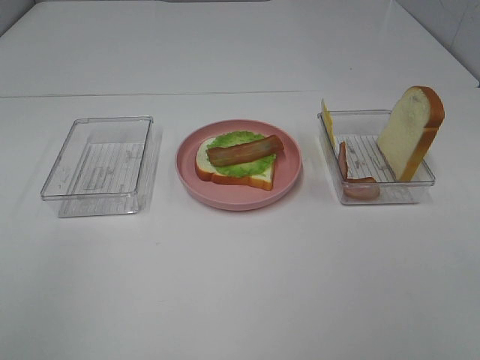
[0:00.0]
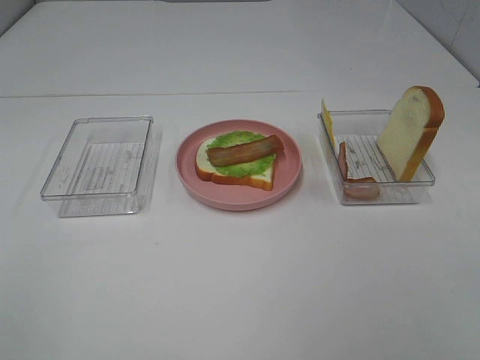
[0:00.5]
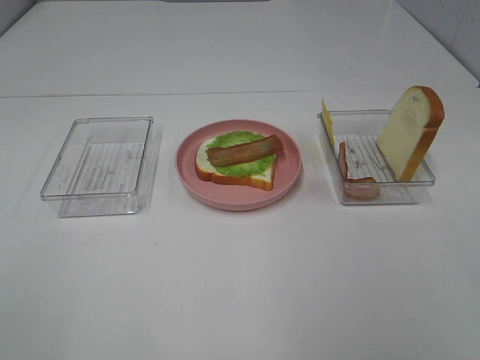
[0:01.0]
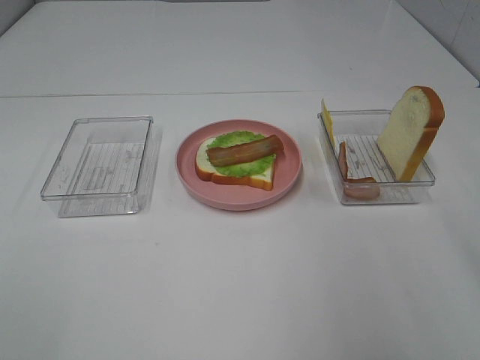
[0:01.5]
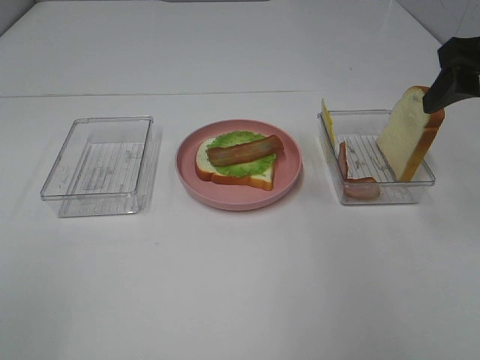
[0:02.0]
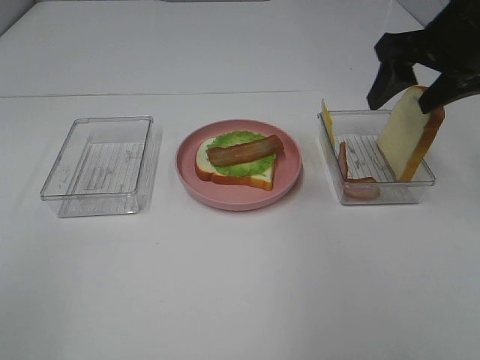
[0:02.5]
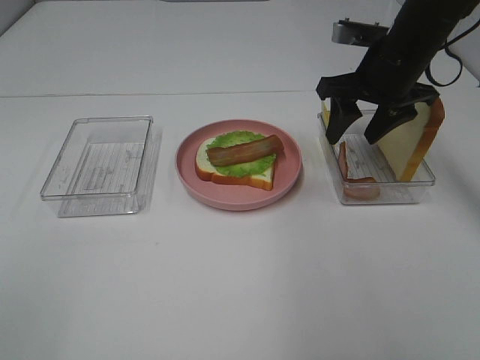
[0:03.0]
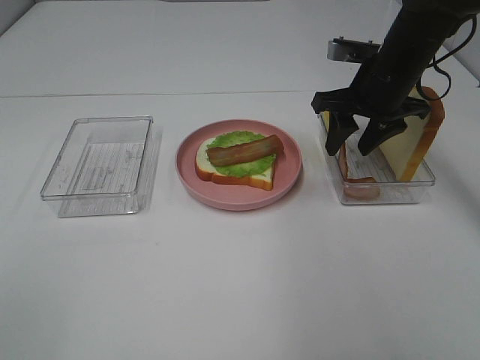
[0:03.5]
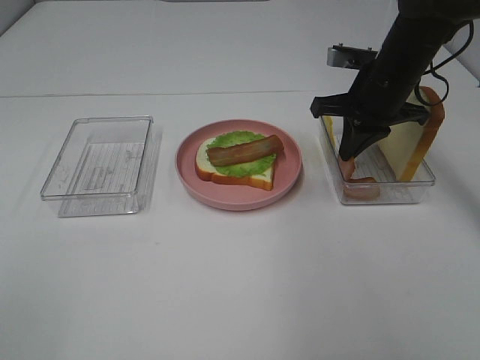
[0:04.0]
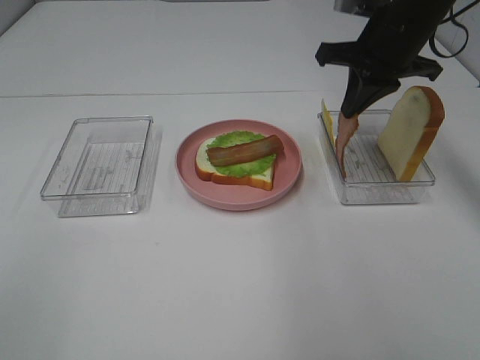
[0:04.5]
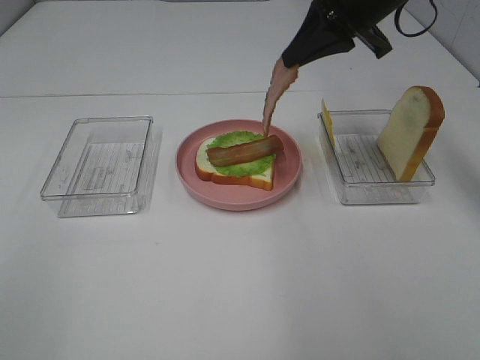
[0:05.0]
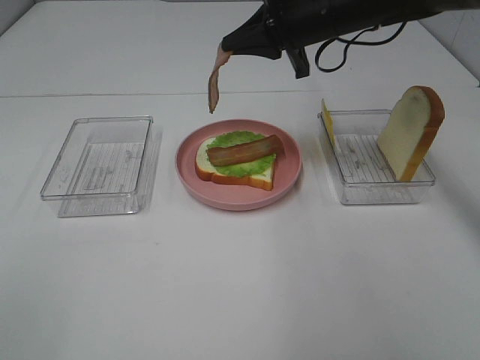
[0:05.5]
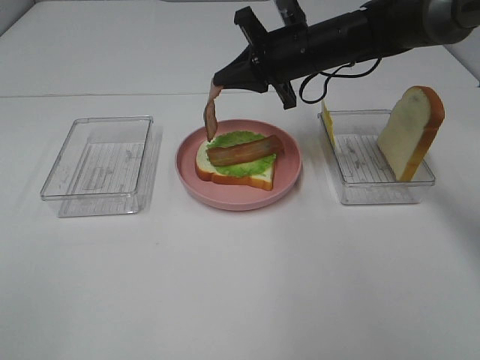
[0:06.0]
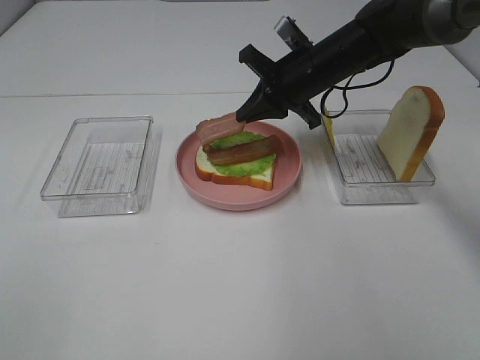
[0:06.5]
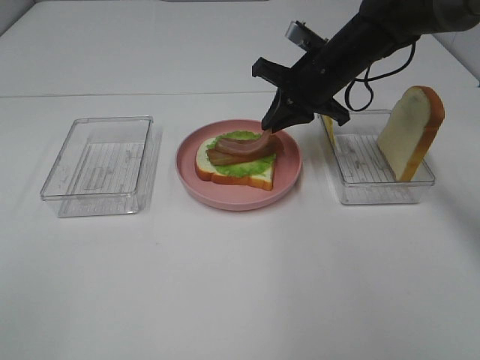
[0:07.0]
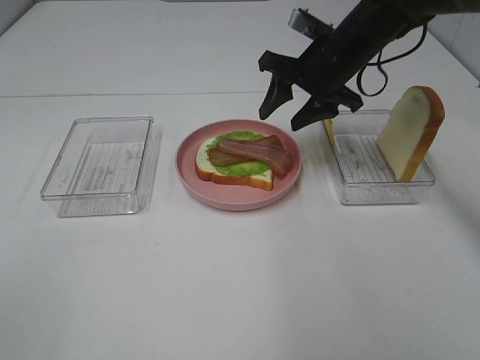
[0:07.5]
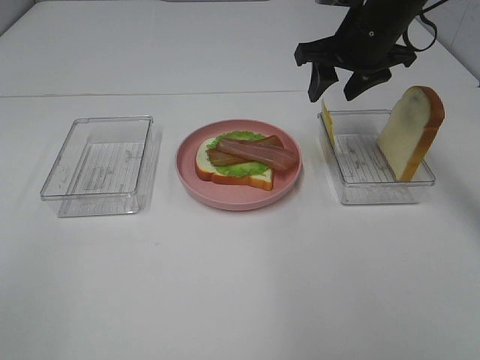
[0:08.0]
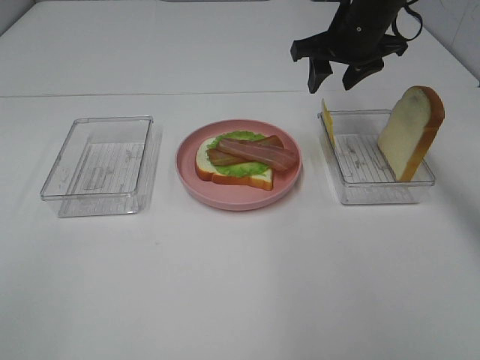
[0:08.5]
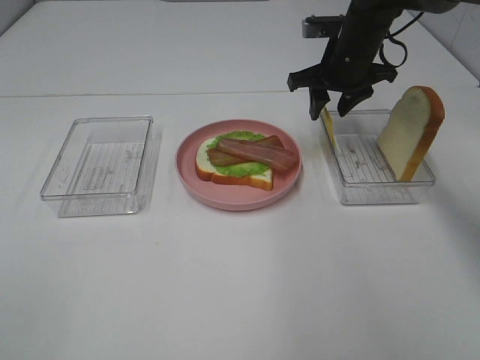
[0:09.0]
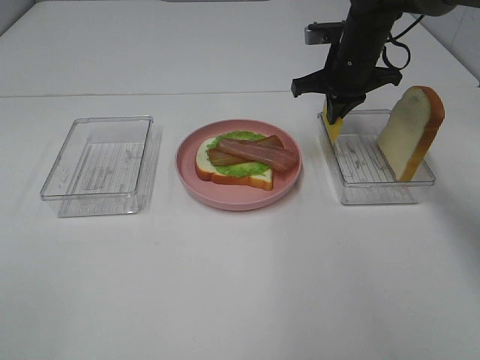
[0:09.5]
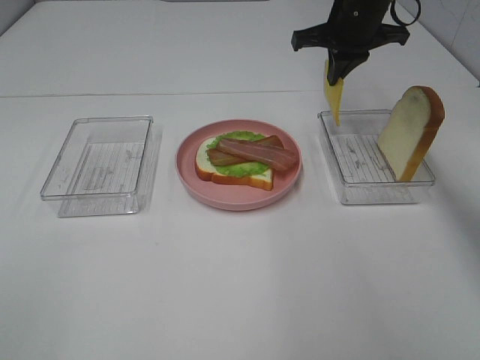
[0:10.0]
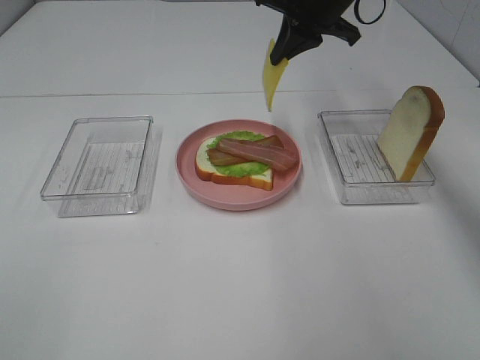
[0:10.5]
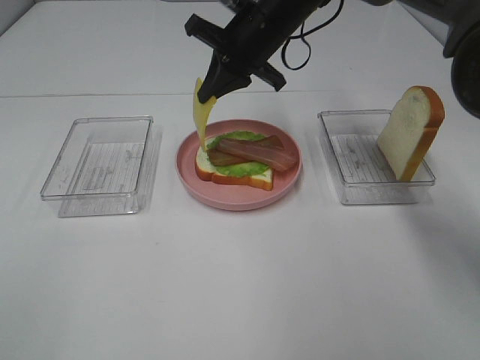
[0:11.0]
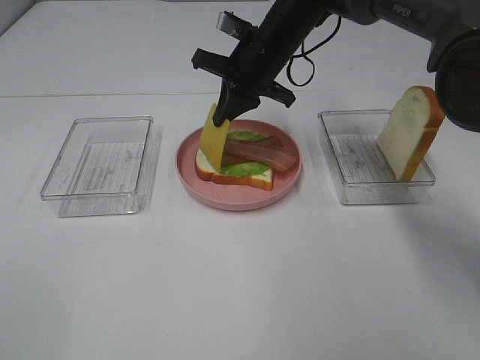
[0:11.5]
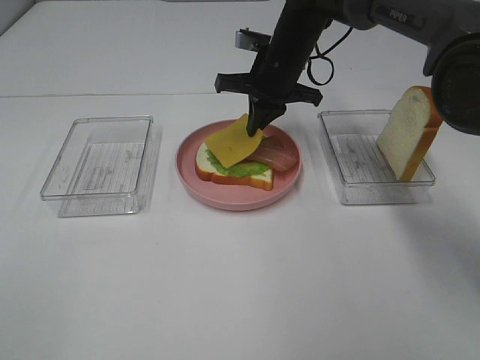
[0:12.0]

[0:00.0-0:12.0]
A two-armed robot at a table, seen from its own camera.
Task of the whole recording: Make sandwiches.
Step, 0:00.0 to 0:04.0: Right hand:grab the bacon.
Step, 0:04.5 to 0:07.5: Right hand:place bacon on bacon.
Step, 0:08.0 to 0:09.5: Right hand:grab the cheese slice.
0:00.0 to 0:02.0: The right gripper heads forward, covering roughly 30 cm.
0:02.0 to 0:04.0: The right gripper is displaced forward, downward and to the left by about 20 cm, and closes its fingers.
0:04.0 to 0:06.0: The right gripper goes approximately 10 cm to the left, and reaches roughly 10 cm upward, then returns.
0:06.0 to 0:08.0: The right gripper heads to the right and upward, covering approximately 10 cm, and opens.
0:08.0 to 0:10.0: The right gripper goes about 5 cm forward, and closes its fingers.
0:10.0 to 0:12.0: The right gripper moves to the left and downward, roughly 10 cm.

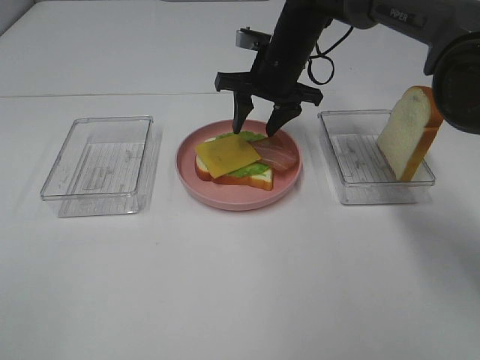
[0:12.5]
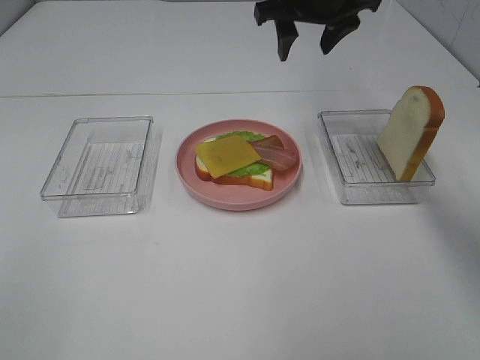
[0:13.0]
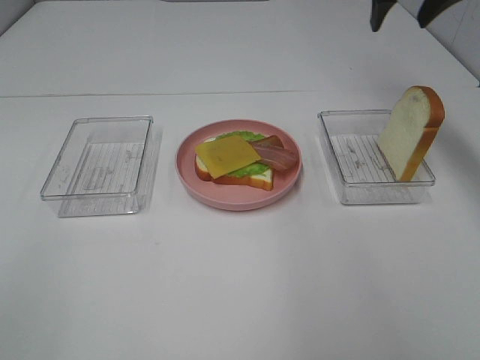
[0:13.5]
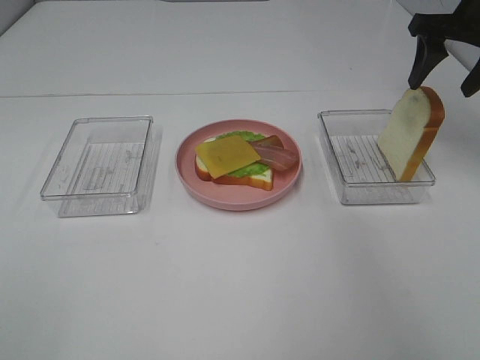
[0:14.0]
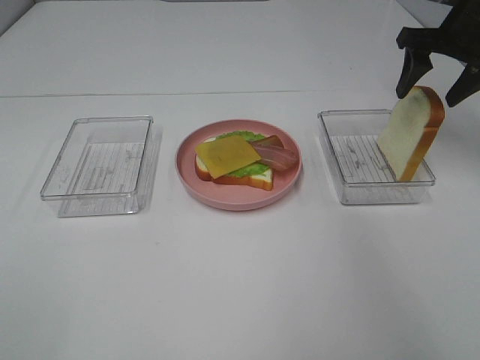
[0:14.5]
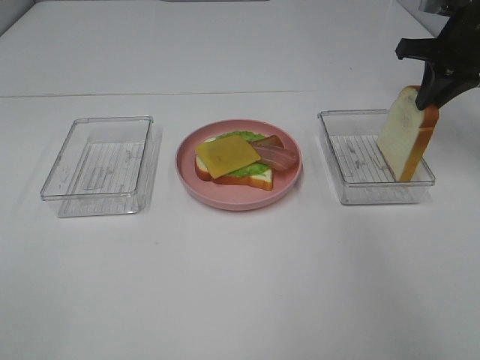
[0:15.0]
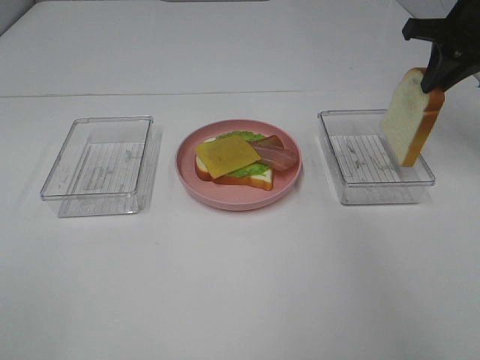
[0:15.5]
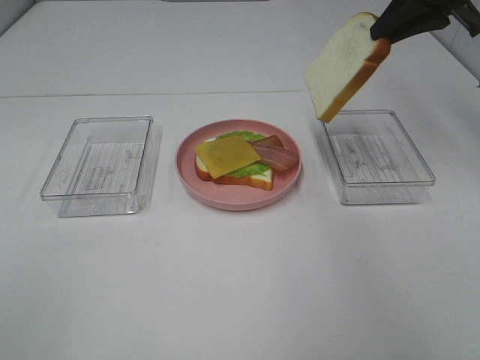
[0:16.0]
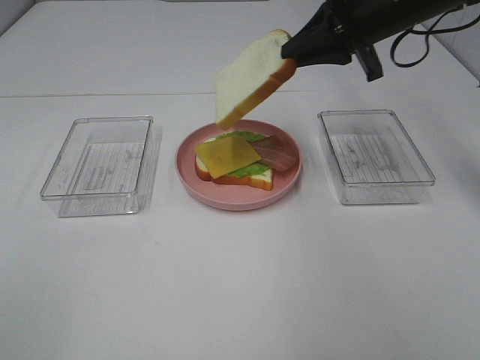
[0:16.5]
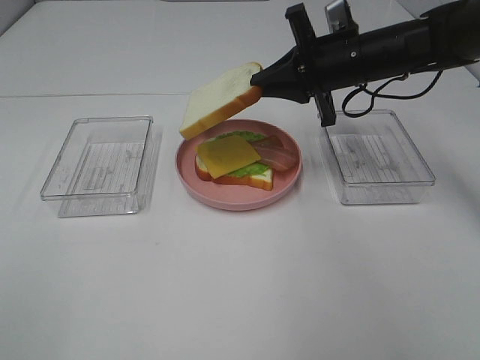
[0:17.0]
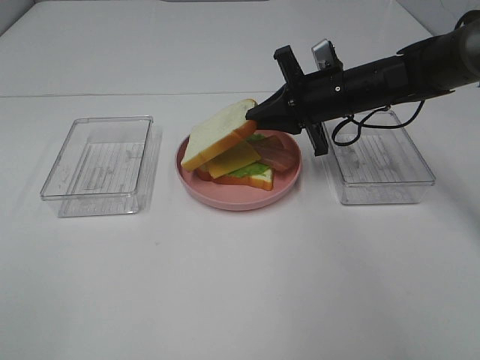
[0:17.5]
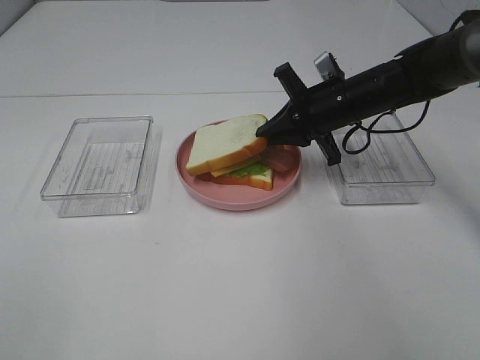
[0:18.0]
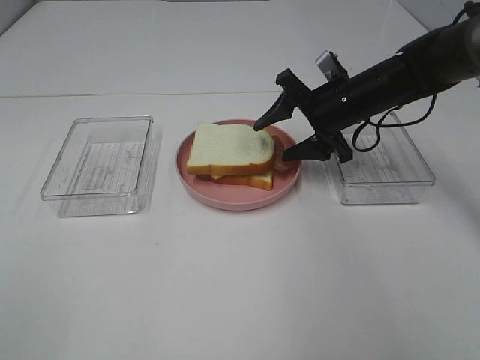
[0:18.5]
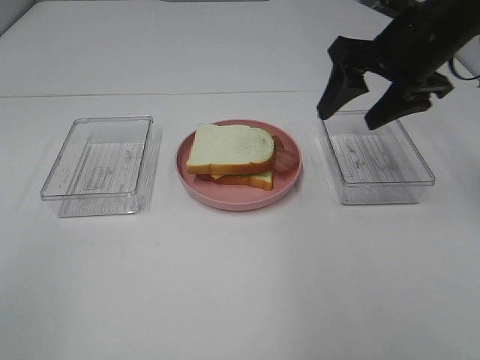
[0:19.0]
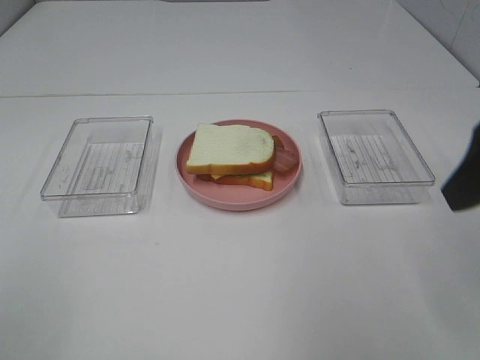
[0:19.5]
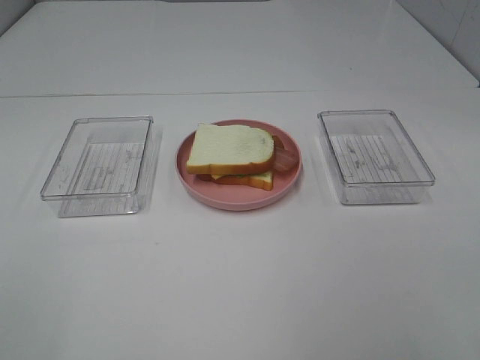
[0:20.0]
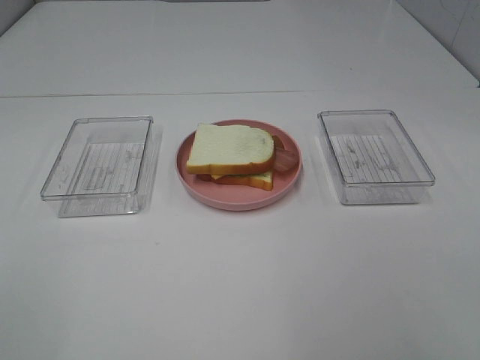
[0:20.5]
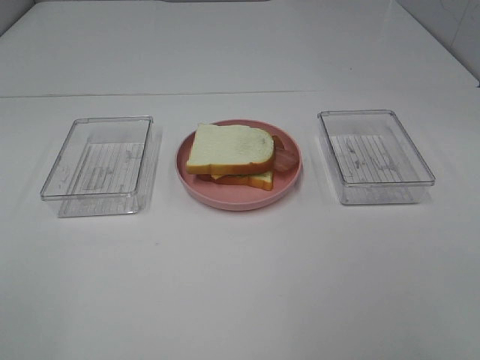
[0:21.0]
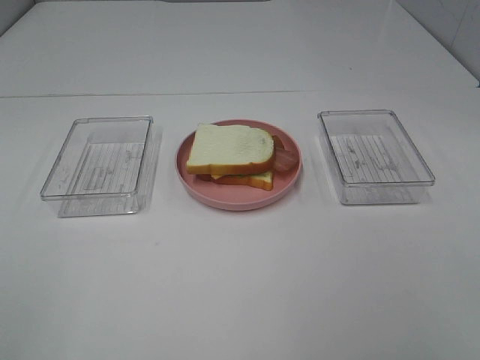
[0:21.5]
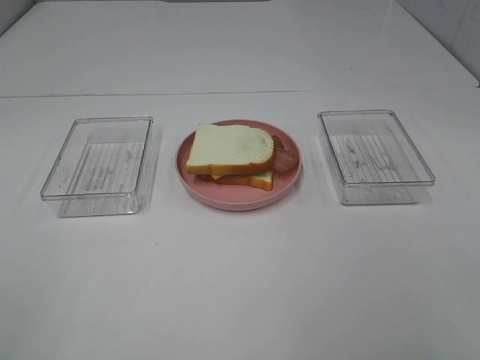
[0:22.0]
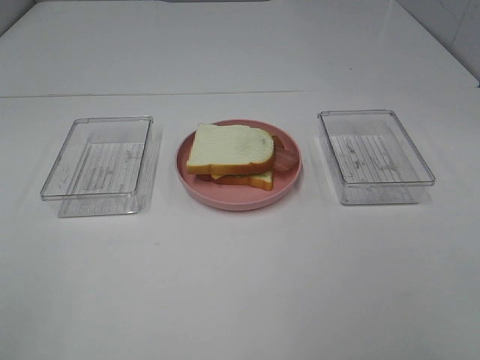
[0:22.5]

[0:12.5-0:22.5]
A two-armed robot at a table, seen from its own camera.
Task of the whole recording: Make sandwiches.
Step, 0:13.0 to 0:14.5: Right hand:grab the bread slice.
Step, 0:15.0 to 0:18.5: Right hand:place the bread slice on the cheese slice.
0:12.5 to 0:14.5: The right gripper shifts approximately 25 cm to the right.
0:14.5 to 0:16.5: The right gripper goes approximately 10 cm to the left, and closes its fingers.
0:16.5 to 0:18.5: The right gripper goes approximately 10 cm downward, and opens.
0:18.5 to 0:20.5: The right gripper heads backward, covering about 40 cm.

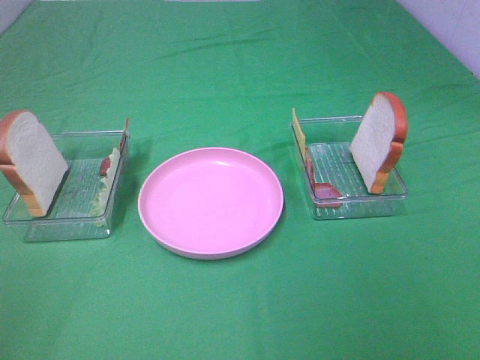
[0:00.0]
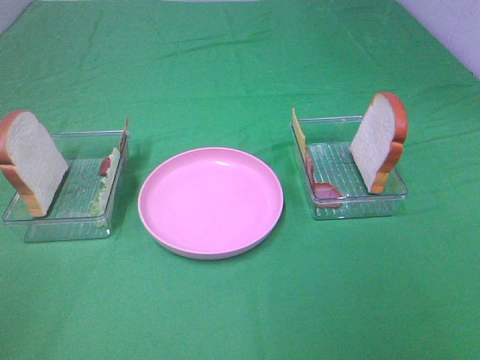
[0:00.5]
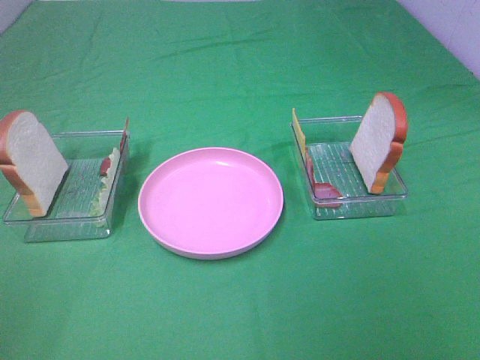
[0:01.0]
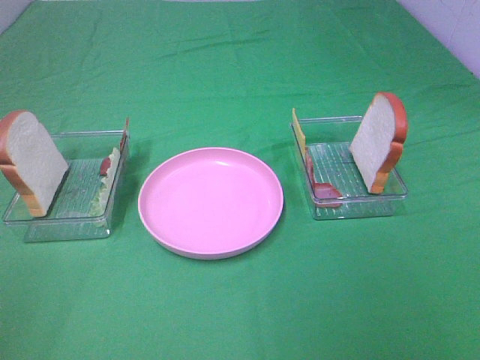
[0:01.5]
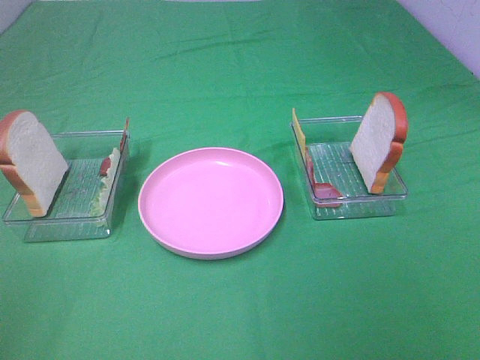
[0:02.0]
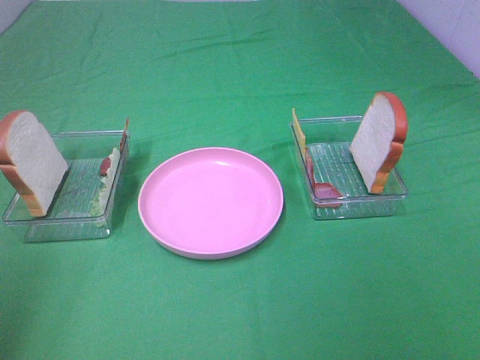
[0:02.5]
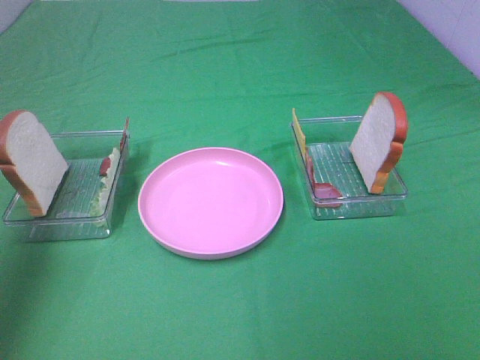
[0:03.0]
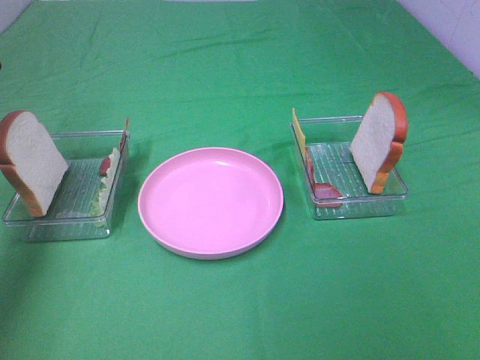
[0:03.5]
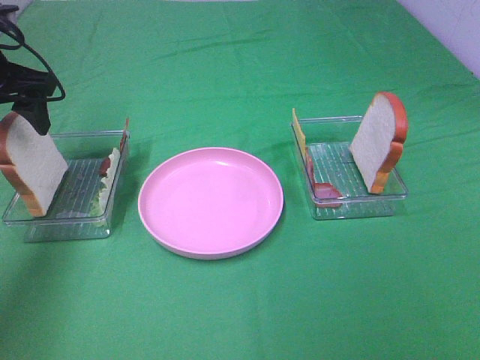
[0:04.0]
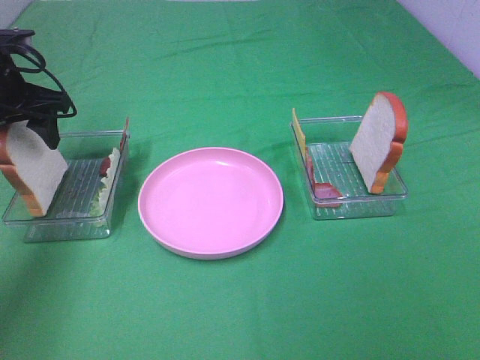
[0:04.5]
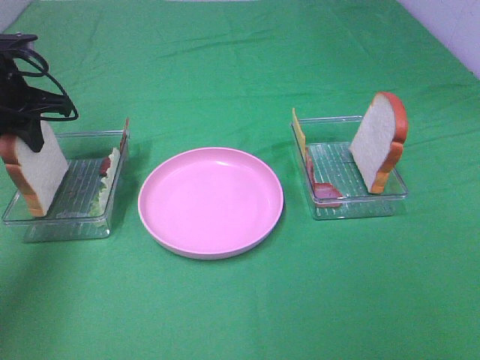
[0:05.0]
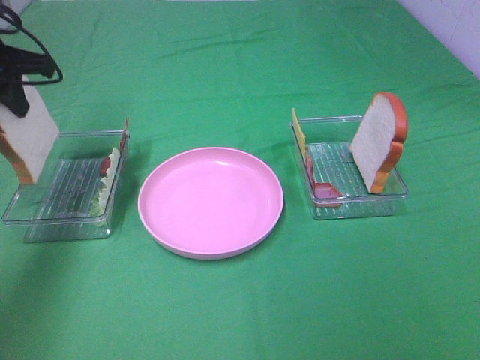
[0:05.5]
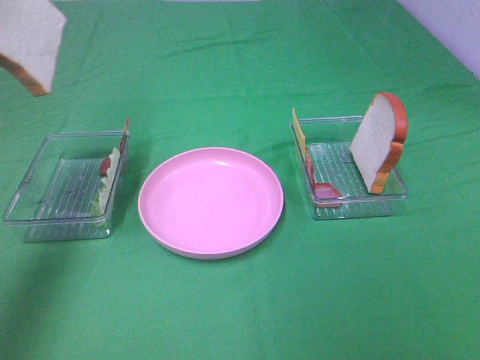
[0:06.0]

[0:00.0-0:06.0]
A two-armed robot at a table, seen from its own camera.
Task of the whole recording: Make sandwiches.
Step, 0:00.0 to 0:05.0: Left hand:grab the bread slice.
0:00.0 to 0:02.0: Both grippers stay about where they are.
0:02.0 to 0:04.0: The left gripper is displaced forward by about 40 cm.
0:04.0 to 0:06.0: The left gripper heads upward and backward, covering about 15 cm, and closes up.
